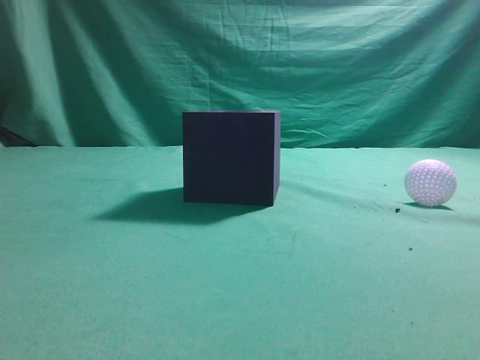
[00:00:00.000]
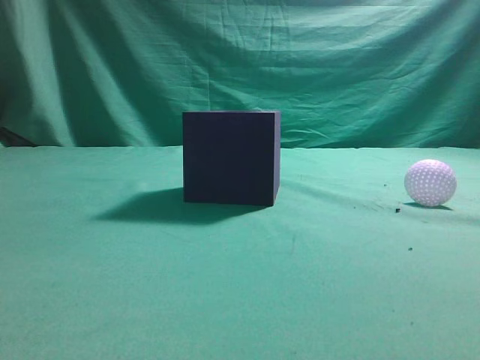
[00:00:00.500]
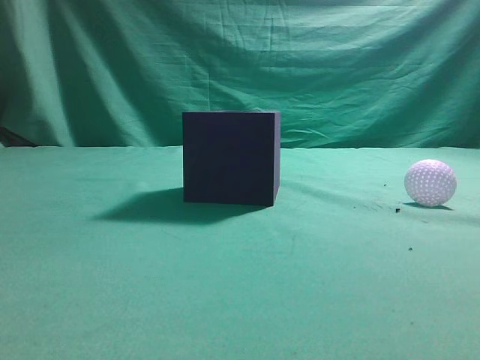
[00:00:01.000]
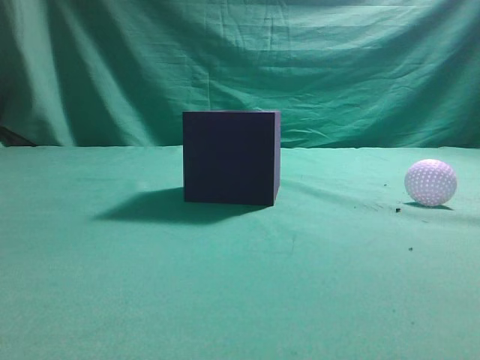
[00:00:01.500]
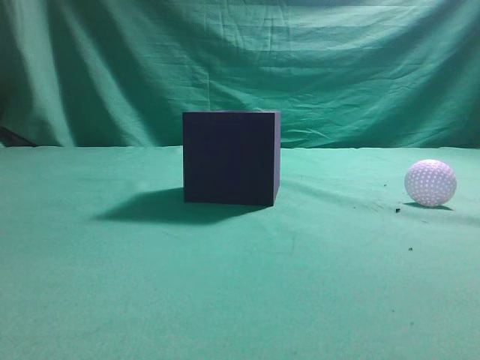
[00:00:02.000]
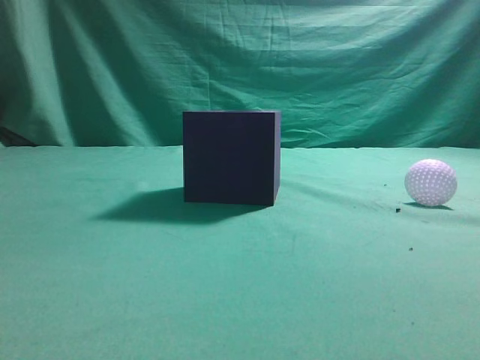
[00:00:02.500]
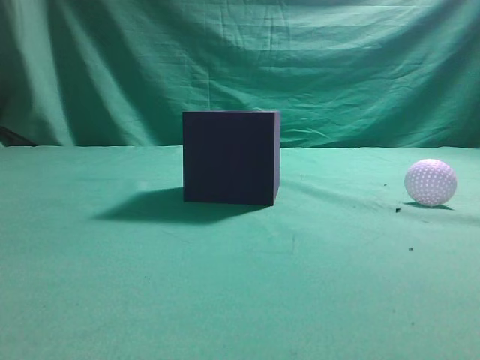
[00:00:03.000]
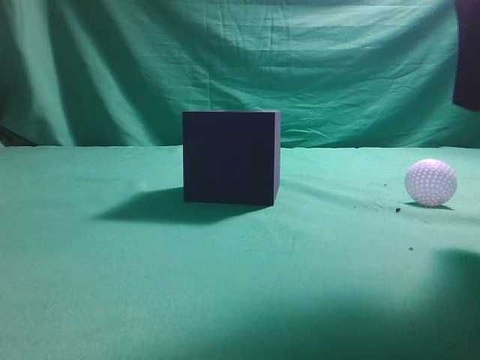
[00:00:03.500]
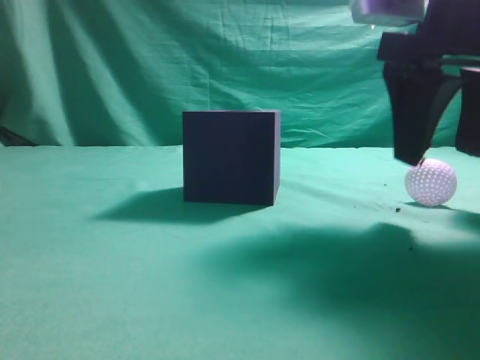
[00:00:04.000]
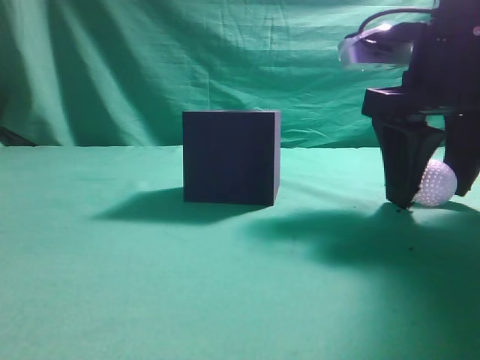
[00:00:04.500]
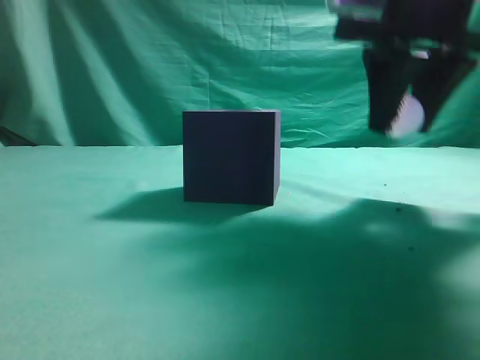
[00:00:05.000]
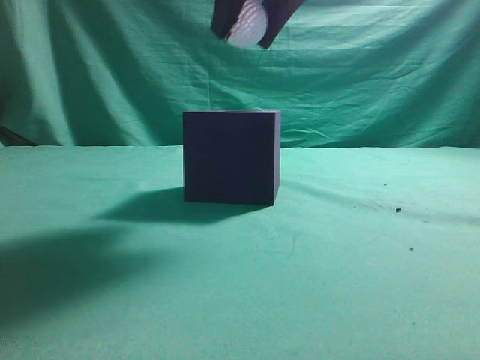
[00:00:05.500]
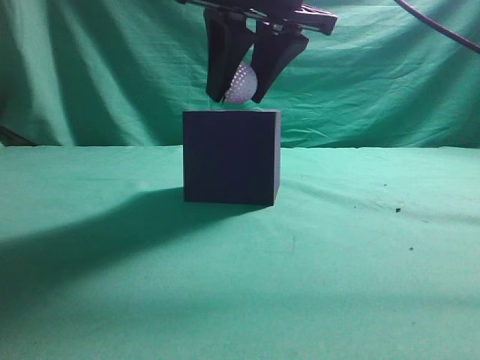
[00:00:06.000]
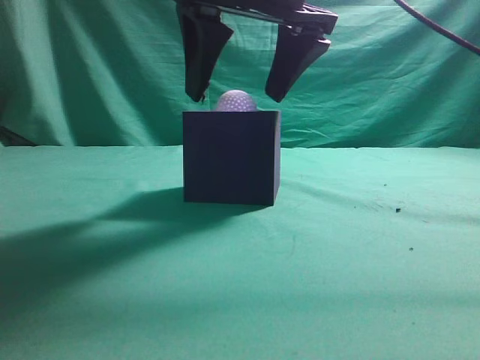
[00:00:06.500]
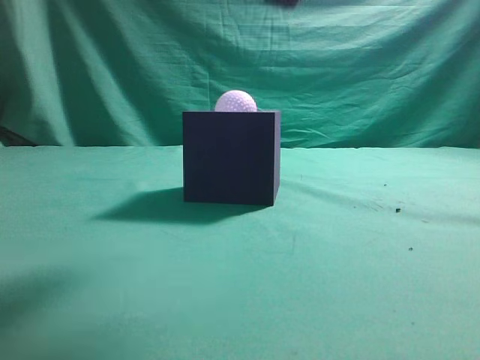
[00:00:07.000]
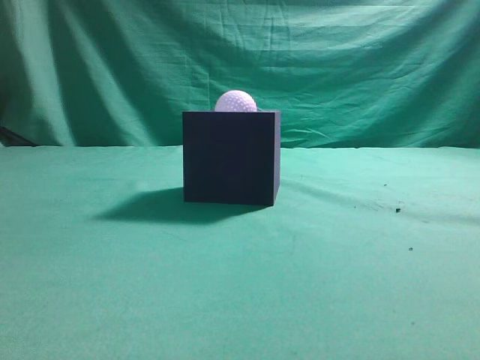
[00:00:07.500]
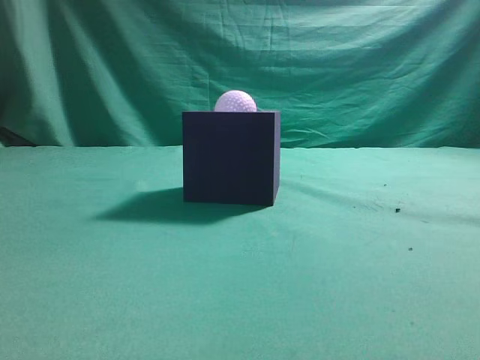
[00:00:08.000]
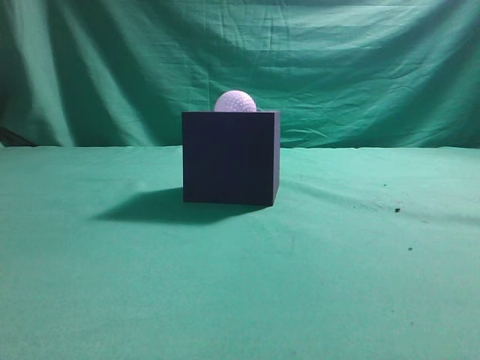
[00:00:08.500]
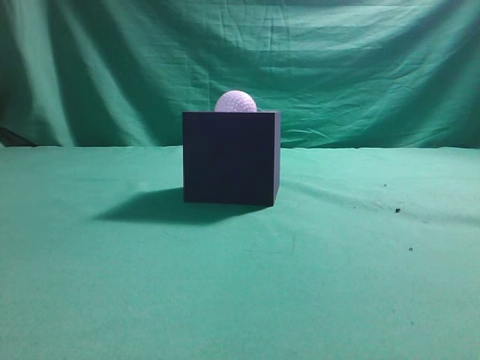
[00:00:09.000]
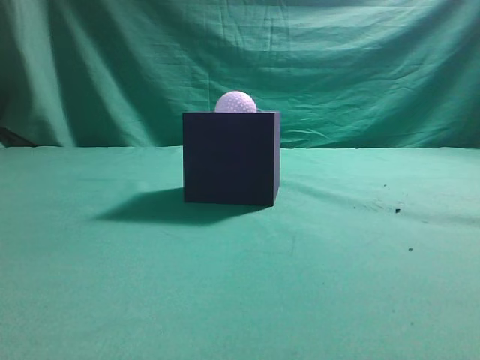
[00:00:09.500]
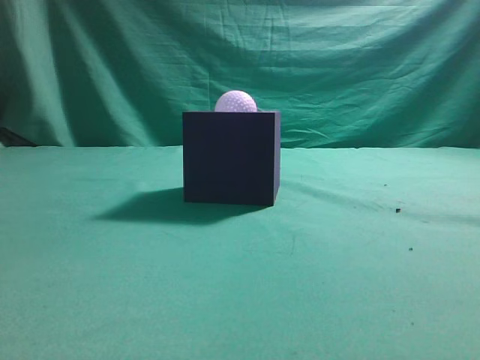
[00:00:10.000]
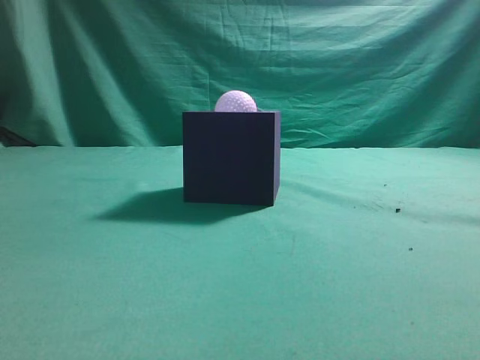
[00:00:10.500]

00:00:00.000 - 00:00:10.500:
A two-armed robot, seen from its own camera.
Task of the whole recording: Pick up the ball and place it in the circular groove above the cube.
Step, 00:00:00.000 - 00:00:04.500: Grasp the sphere on the table.
Step, 00:00:05.000 - 00:00:06.500: Place the sphere into the sphere-shaped recess.
00:00:02.000 - 00:00:04.000: The right gripper travels forward and to the left by some 25 cm, and opens up.
00:00:04.000 - 00:00:06.500: The right gripper is displaced to the left by roughly 15 cm.
00:00:06.500 - 00:00:08.500: The right gripper heads backward, to the right and upward, covering some 35 cm, and closes up.
